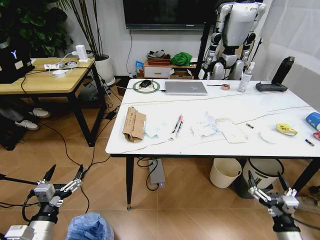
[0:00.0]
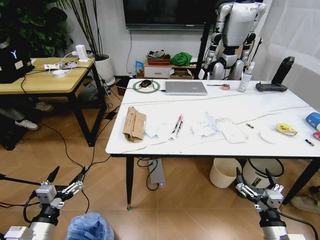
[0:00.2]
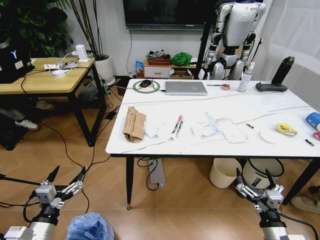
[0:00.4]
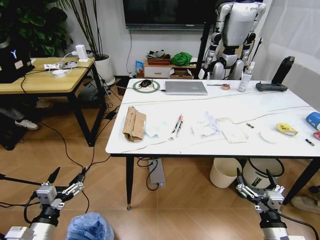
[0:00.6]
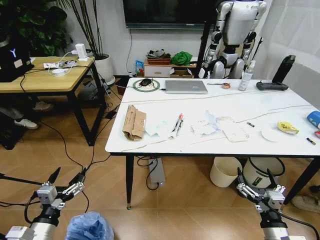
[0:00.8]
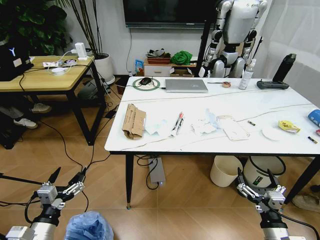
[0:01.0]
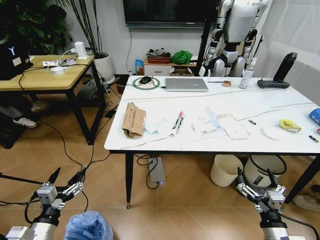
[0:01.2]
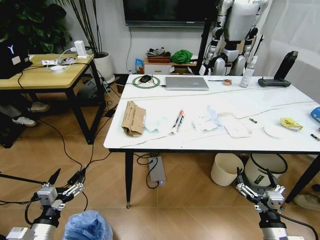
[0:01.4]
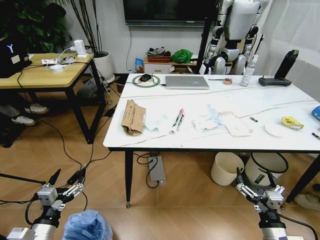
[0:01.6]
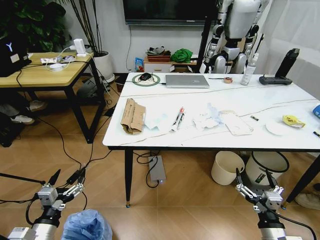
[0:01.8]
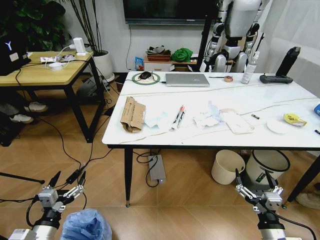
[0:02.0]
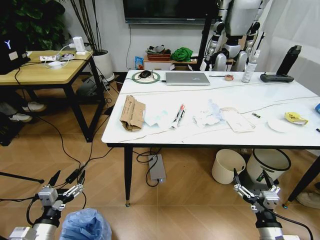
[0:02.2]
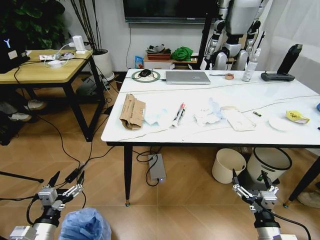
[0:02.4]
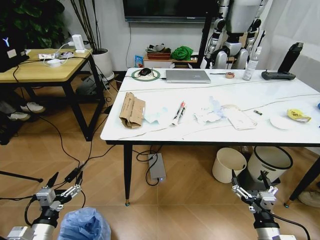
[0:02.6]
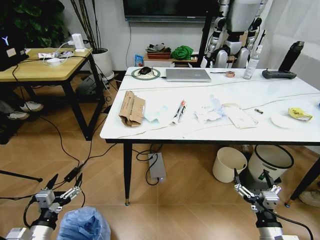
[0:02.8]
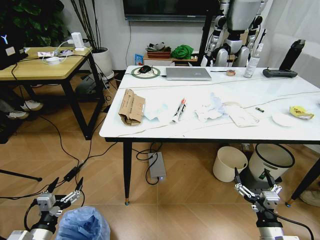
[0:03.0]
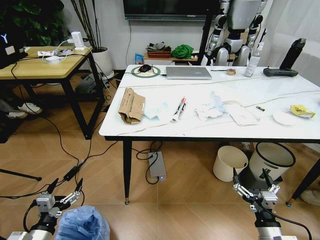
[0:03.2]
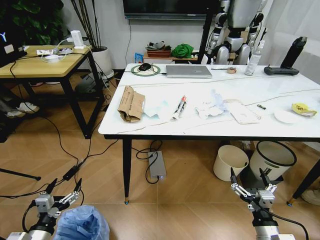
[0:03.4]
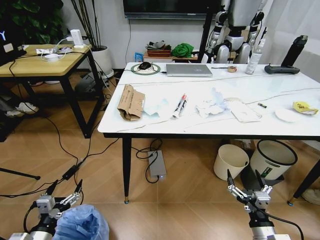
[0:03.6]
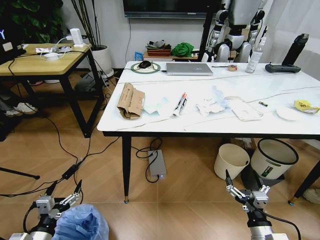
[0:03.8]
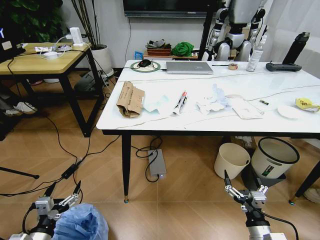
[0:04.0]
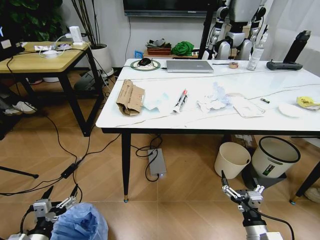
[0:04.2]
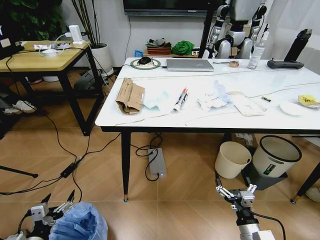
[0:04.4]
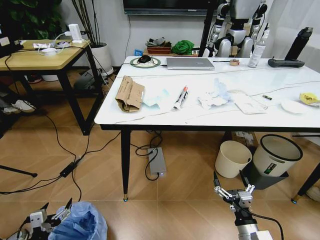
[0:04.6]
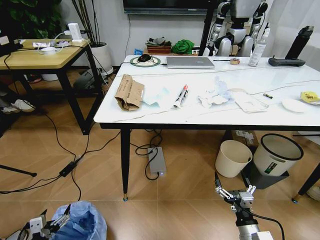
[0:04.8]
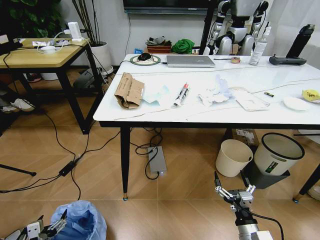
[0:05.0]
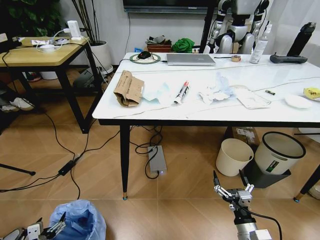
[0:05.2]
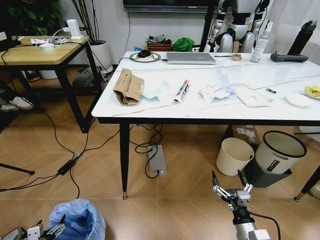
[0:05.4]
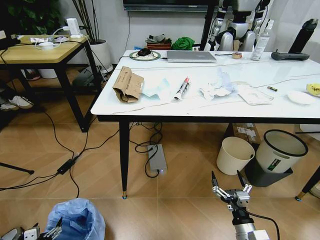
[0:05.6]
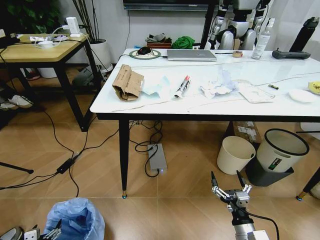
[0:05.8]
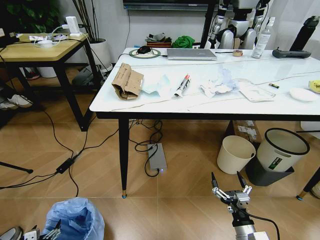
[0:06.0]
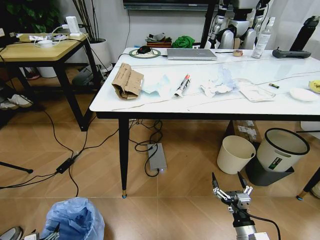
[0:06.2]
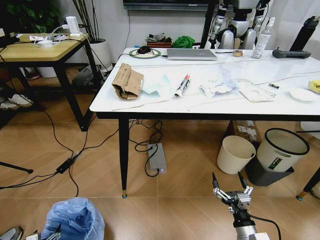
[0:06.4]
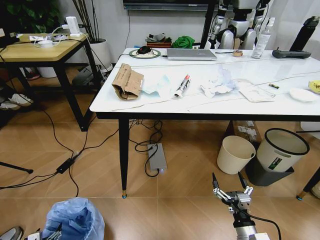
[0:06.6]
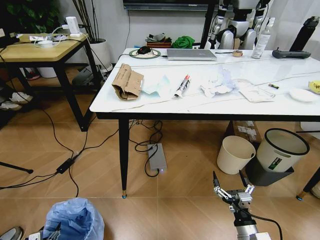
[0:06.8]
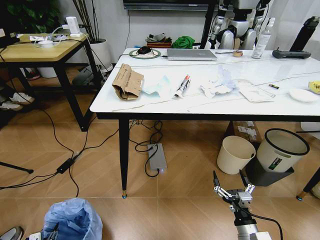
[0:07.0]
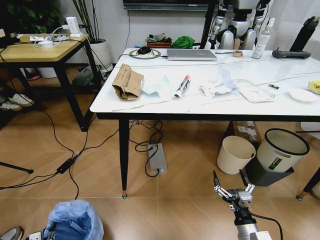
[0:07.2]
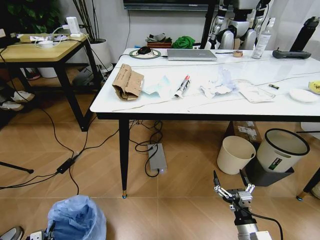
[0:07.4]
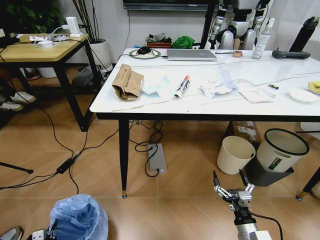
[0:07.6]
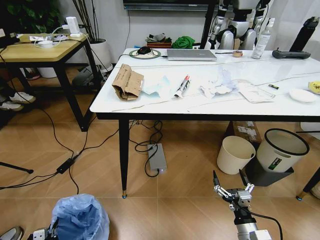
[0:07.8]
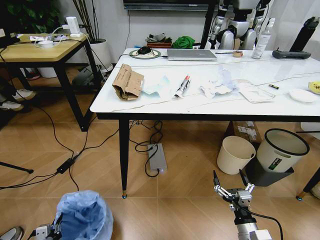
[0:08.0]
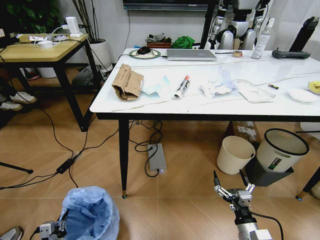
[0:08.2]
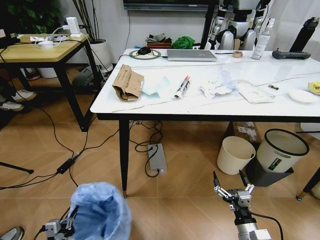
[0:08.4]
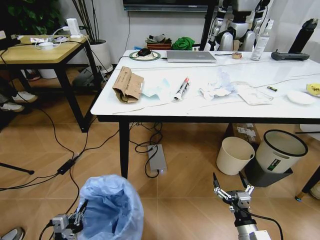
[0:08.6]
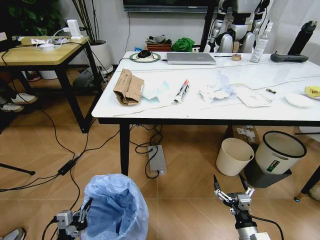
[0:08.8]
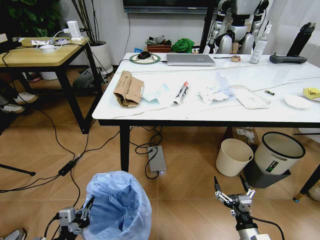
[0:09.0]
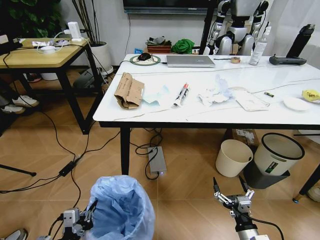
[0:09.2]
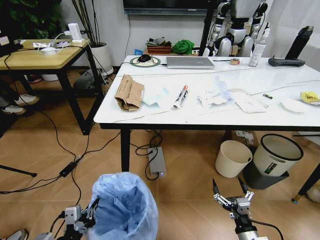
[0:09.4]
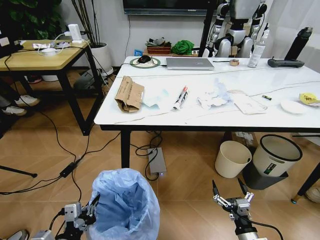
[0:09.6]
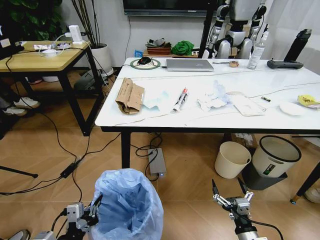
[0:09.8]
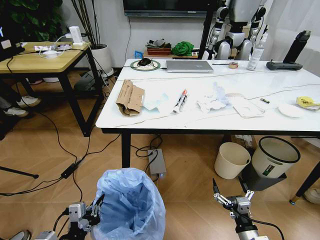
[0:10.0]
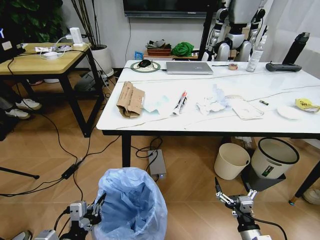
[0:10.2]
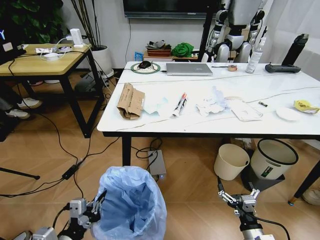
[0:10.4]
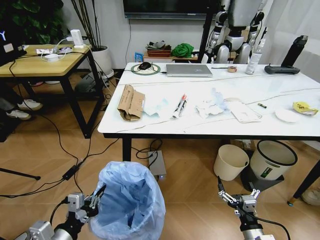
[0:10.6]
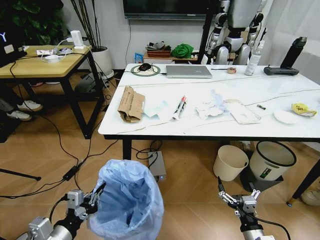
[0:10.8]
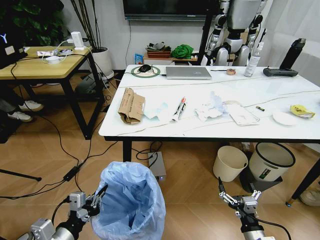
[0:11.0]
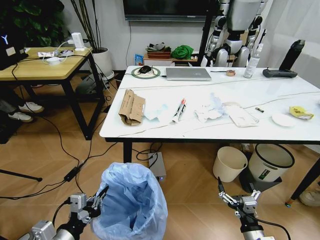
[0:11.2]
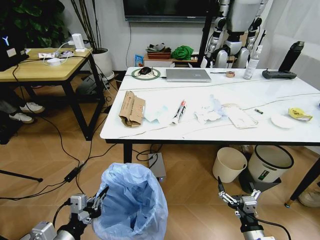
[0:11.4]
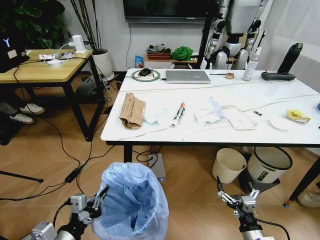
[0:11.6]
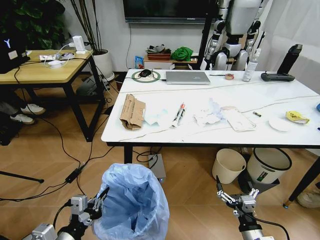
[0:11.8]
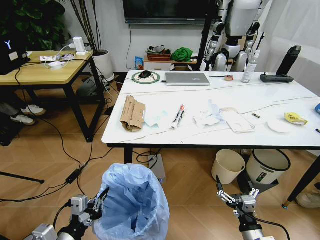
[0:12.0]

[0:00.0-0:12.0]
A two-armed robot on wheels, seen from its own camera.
Task of the whole recording: Pick up the trash bin and place the trash from the table into it.
0:03.0 to 0:04.4: The right gripper moves about 5 cm.
0:04.4 to 0:06.0: The left gripper is displaced downward and to the left by approximately 10 cm.
0:06.0 to 0:07.6: The left gripper closes up.
0:07.6 to 0:09.0: The left gripper is displaced upward and to the right by some 20 cm.
0:09.0 to 0:10.4: The left gripper goes roughly 5 cm upward.

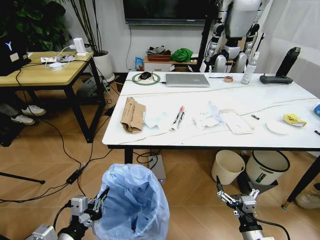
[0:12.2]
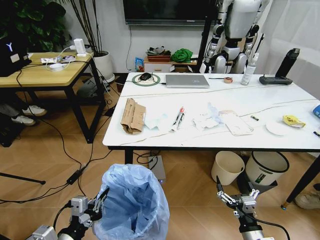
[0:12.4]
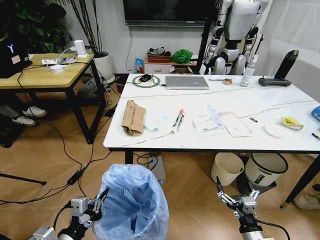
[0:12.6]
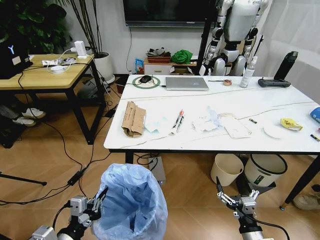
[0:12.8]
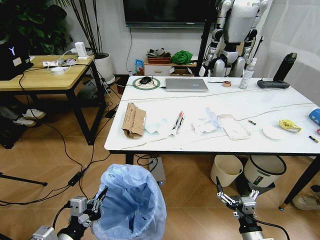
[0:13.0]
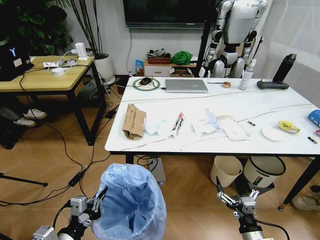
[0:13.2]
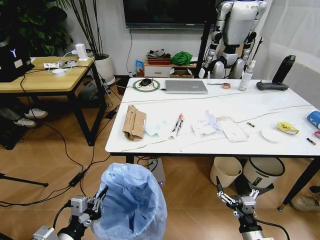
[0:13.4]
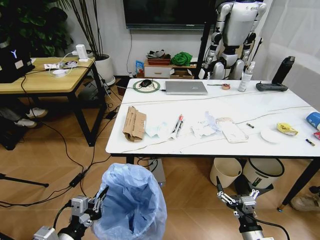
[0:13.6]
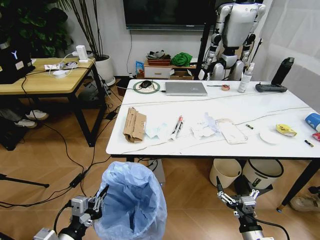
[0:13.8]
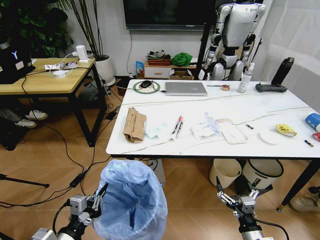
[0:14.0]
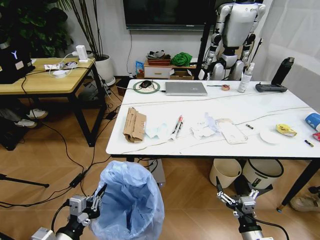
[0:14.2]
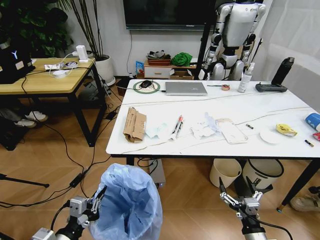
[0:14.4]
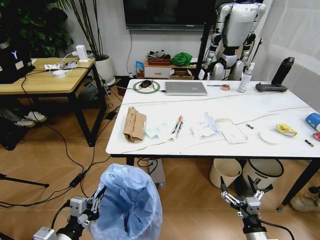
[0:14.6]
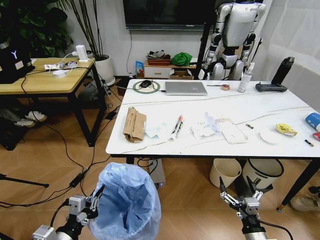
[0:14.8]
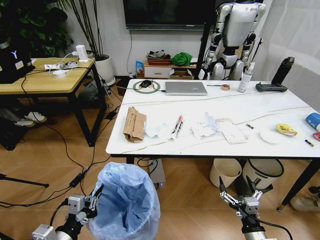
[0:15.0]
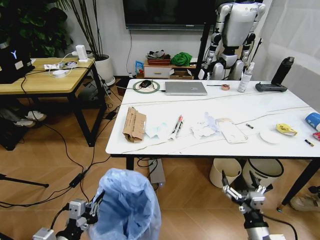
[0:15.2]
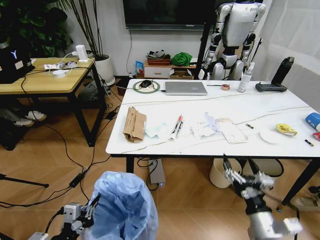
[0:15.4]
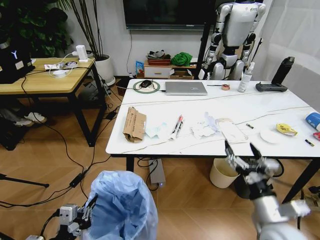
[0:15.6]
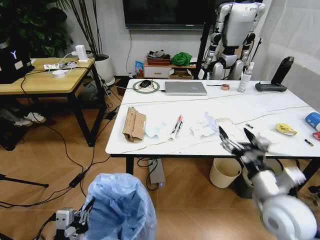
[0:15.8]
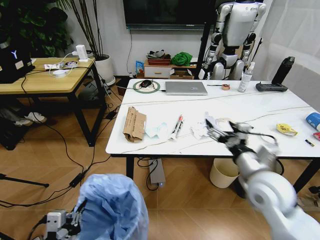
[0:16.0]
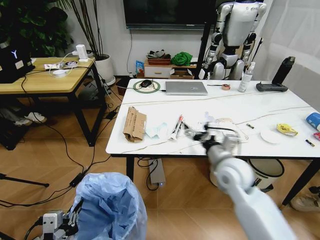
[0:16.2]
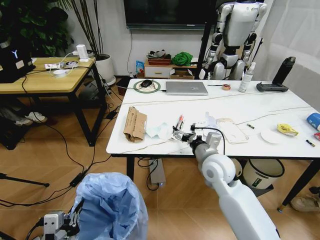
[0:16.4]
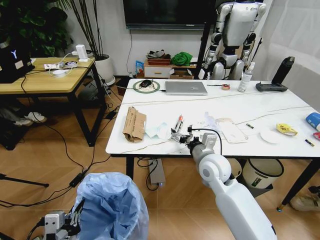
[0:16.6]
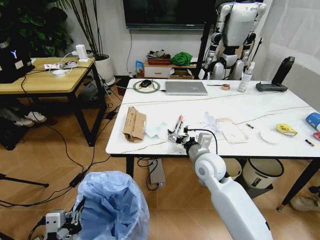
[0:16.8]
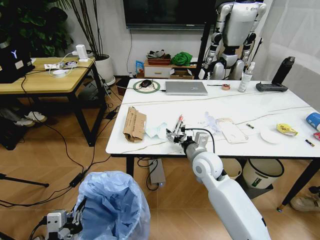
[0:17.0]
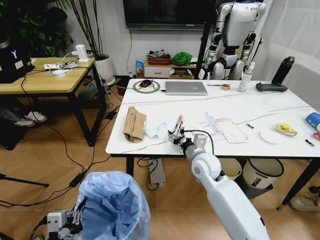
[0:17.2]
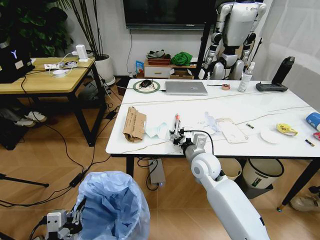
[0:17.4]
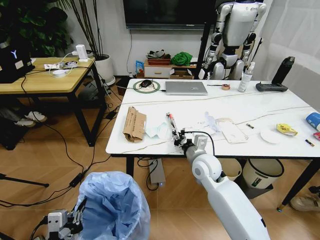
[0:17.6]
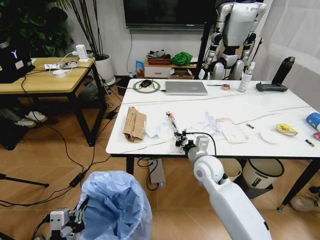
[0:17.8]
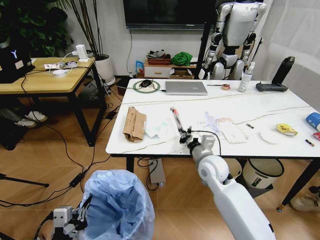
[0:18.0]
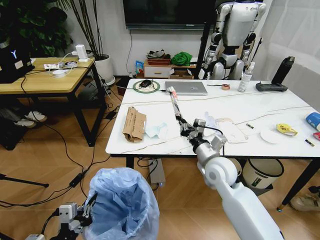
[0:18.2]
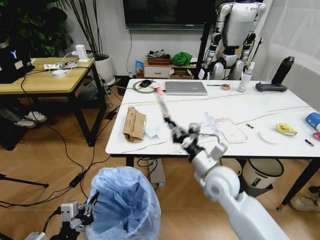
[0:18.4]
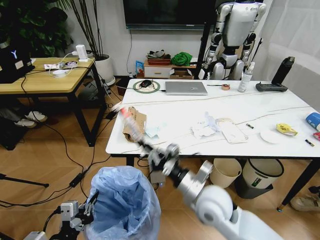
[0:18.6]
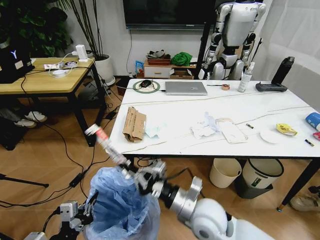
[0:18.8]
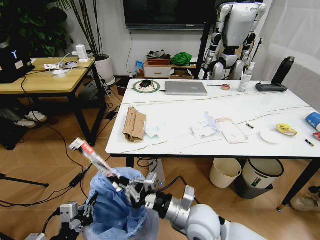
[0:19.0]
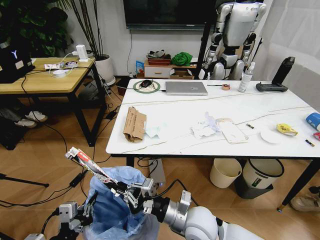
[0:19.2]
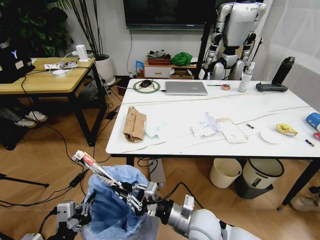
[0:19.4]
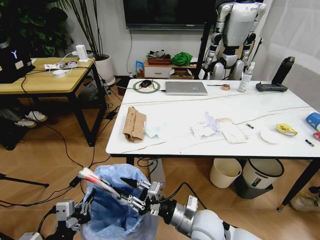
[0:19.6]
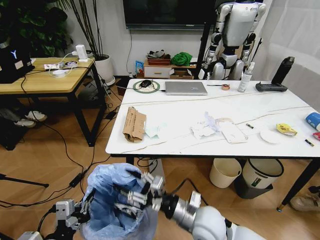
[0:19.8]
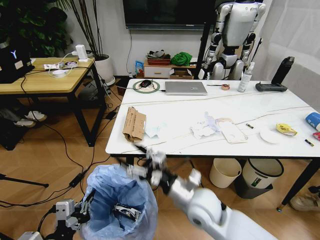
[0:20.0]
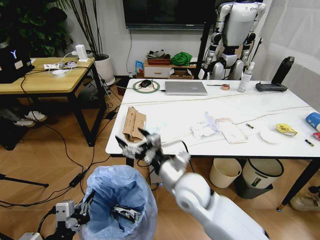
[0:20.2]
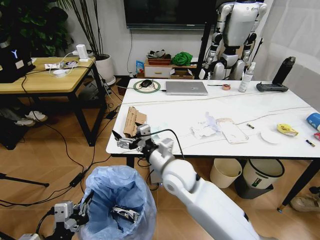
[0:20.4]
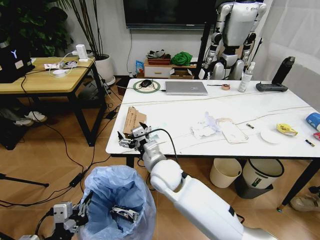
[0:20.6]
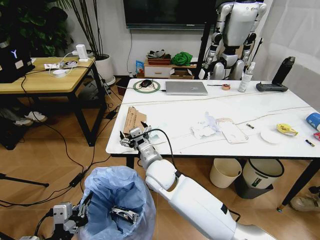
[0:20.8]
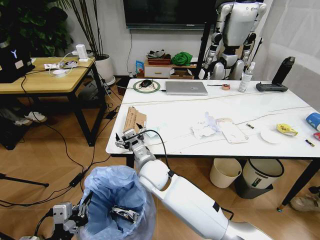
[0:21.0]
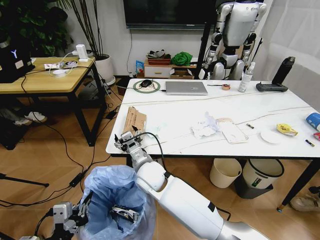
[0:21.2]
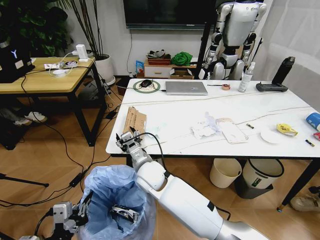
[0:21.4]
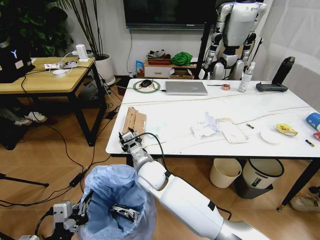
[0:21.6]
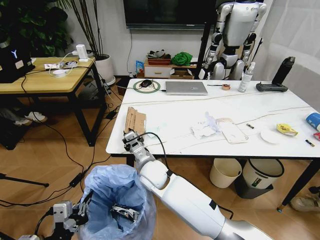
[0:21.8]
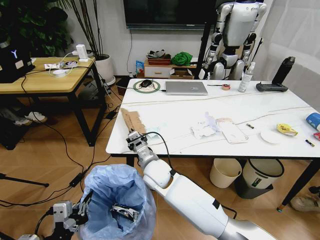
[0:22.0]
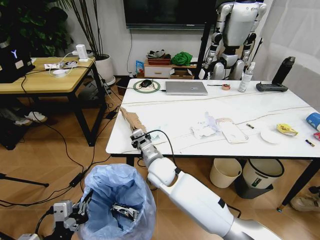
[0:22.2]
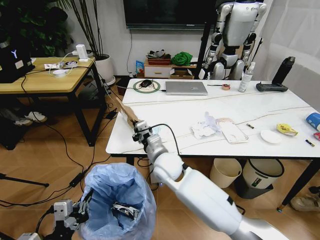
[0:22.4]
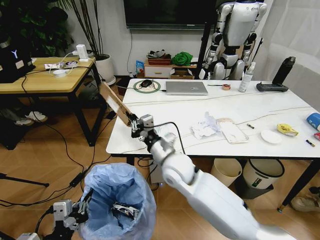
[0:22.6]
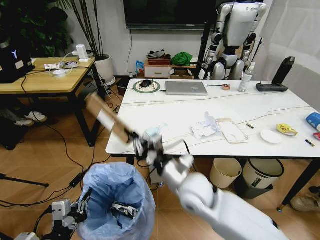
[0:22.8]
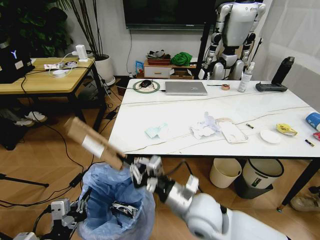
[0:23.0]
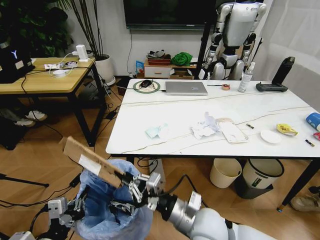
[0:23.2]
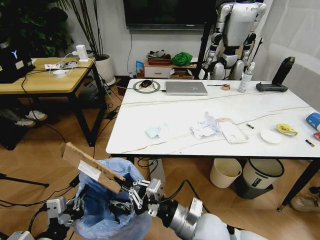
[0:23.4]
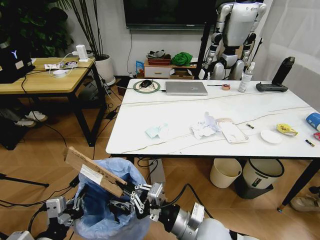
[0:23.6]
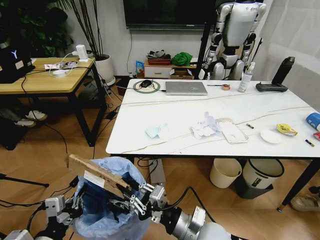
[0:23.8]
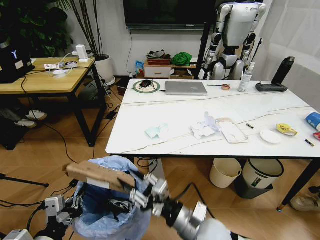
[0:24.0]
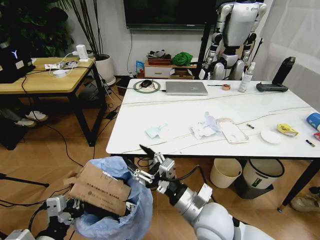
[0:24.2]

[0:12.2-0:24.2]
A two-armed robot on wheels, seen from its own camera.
Task of the whole recording: Pick up the trash bin and place the trash from the table into it.
0:13.8 to 0:15.2: The grippers move only a little.
0:15.2 to 0:16.6: The right gripper goes approximately 30 cm forward, upward and to the left; the left gripper shifts by roughly 5 cm.
0:16.6 to 0:18.2: The right gripper closes up.
0:18.2 to 0:19.8: The right gripper shifts about 15 cm backward and to the left, and opens.
0:19.8 to 0:21.2: The right gripper moves to the left and forward, some 20 cm.
0:21.2 to 0:22.6: The right gripper is displaced to the right and upward by approximately 10 cm, and closes.
0:22.6 to 0:24.2: The right gripper moves backward and to the right, roughly 15 cm, and opens up.
